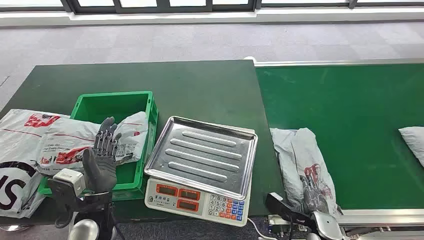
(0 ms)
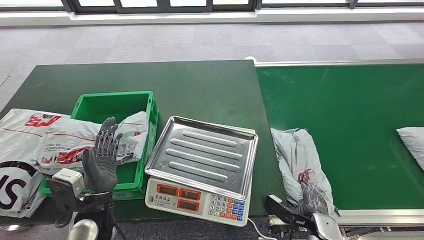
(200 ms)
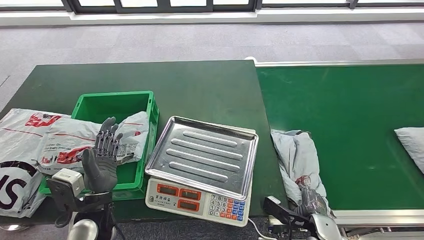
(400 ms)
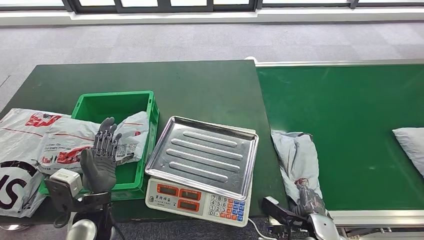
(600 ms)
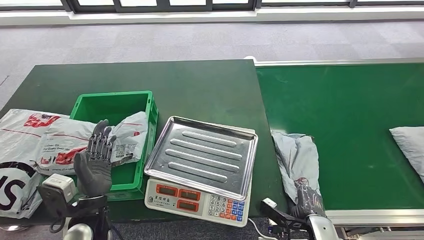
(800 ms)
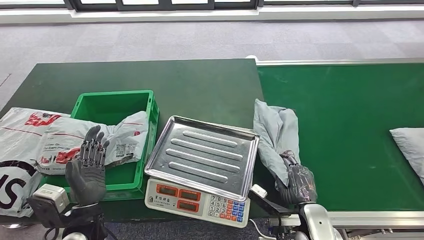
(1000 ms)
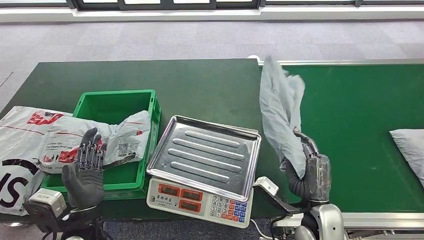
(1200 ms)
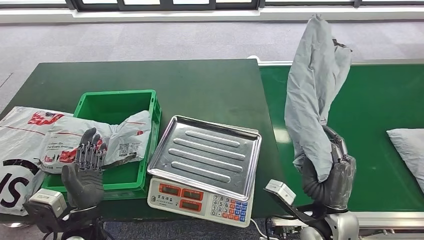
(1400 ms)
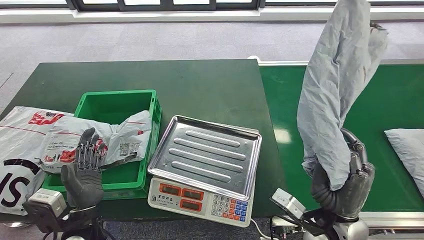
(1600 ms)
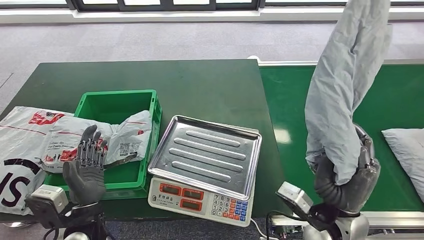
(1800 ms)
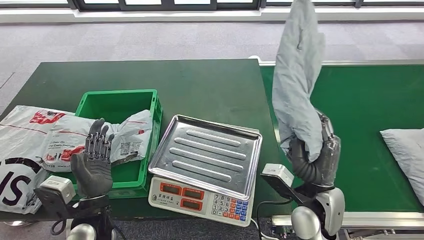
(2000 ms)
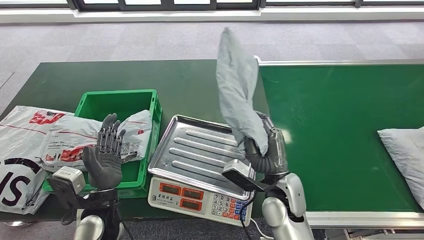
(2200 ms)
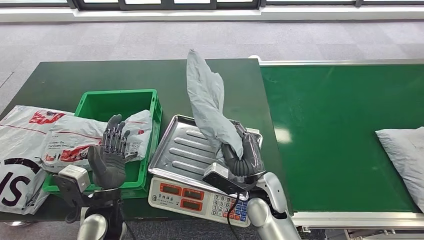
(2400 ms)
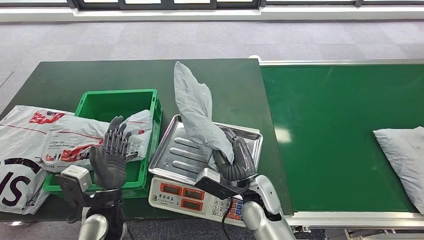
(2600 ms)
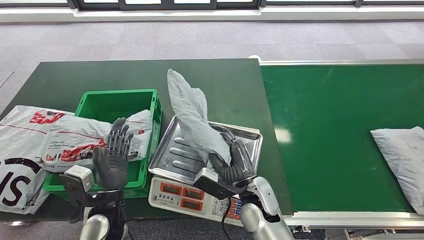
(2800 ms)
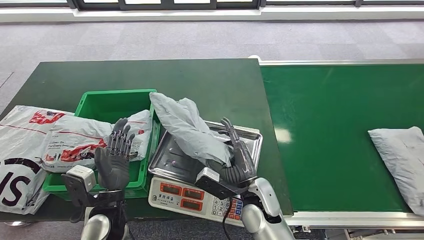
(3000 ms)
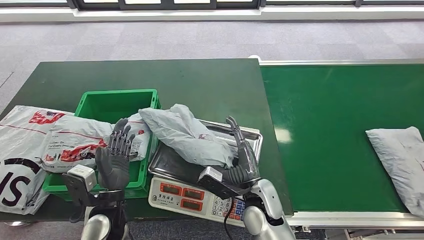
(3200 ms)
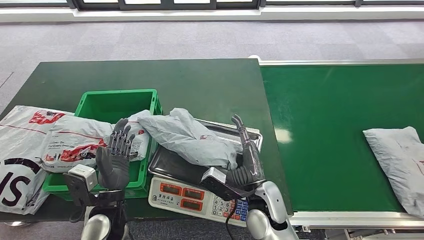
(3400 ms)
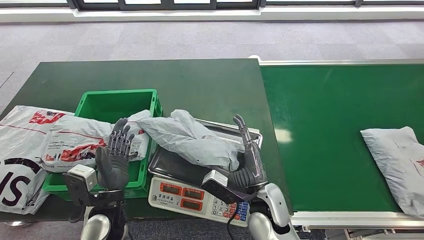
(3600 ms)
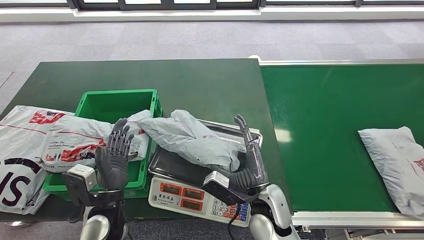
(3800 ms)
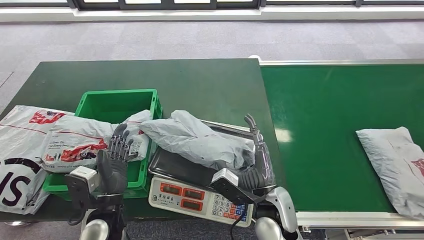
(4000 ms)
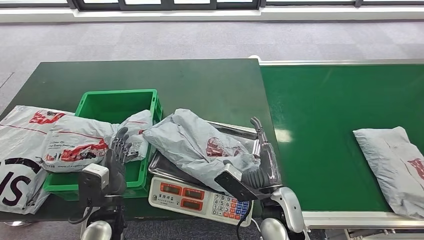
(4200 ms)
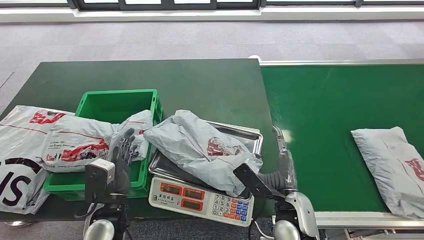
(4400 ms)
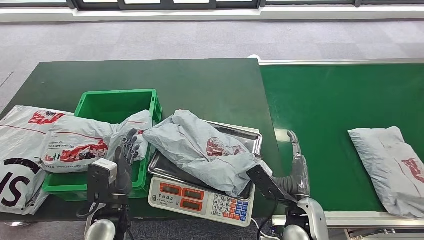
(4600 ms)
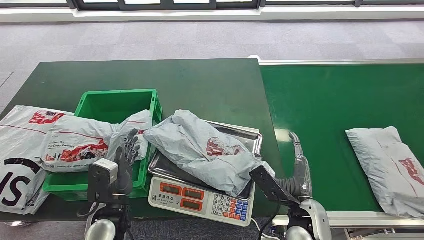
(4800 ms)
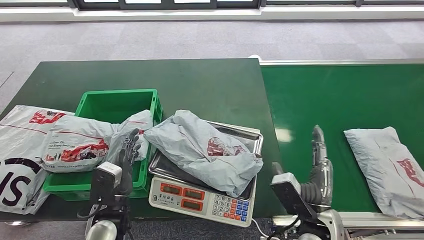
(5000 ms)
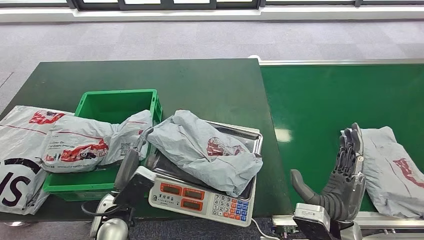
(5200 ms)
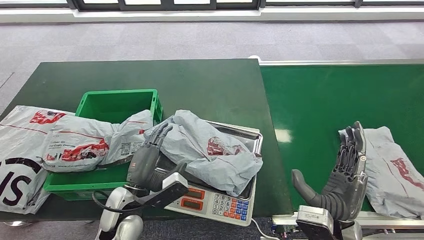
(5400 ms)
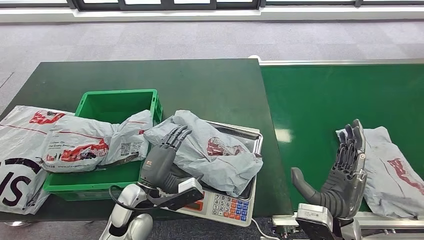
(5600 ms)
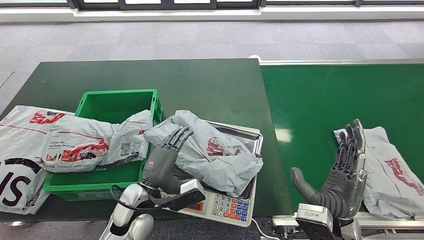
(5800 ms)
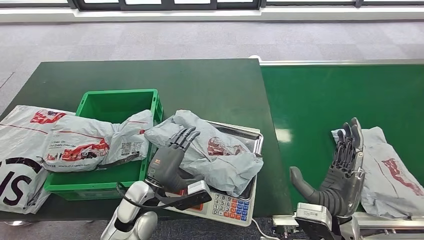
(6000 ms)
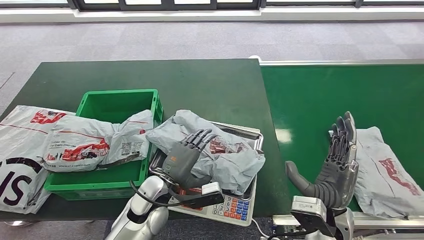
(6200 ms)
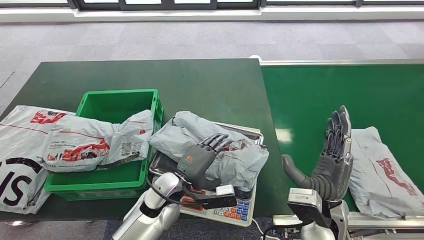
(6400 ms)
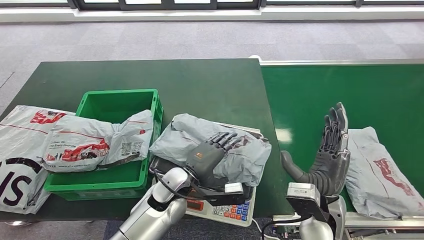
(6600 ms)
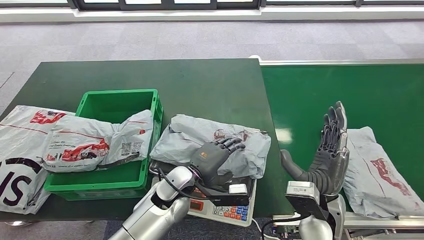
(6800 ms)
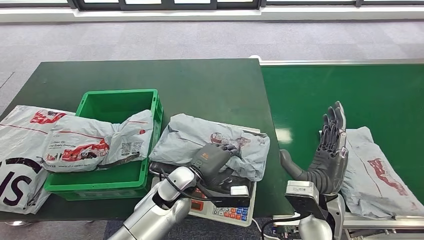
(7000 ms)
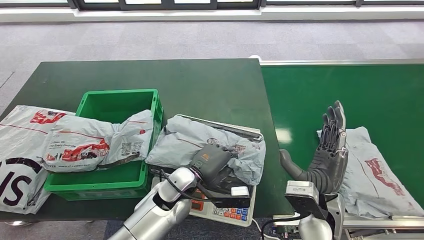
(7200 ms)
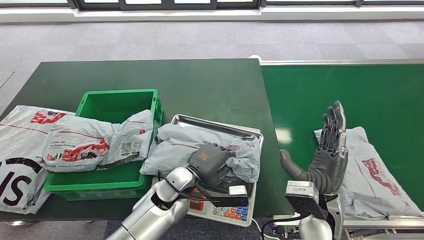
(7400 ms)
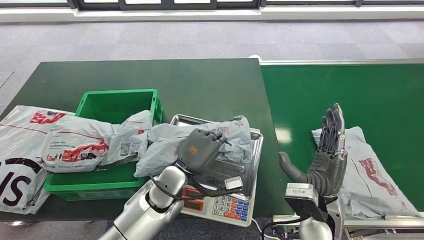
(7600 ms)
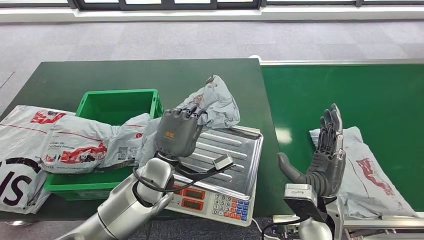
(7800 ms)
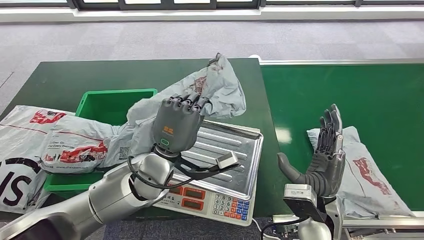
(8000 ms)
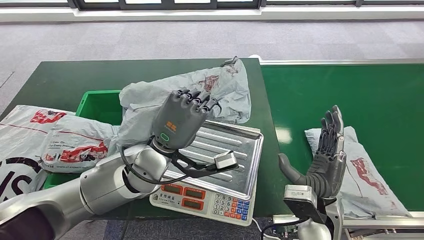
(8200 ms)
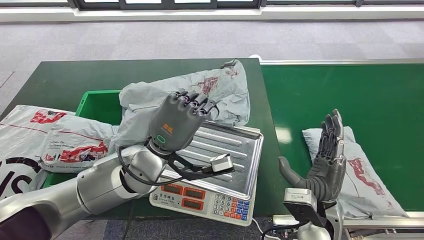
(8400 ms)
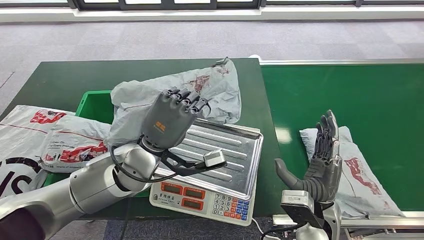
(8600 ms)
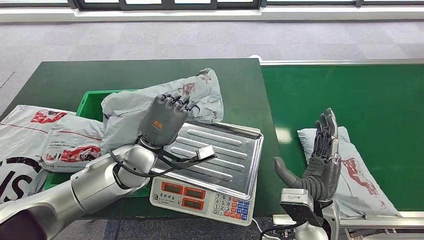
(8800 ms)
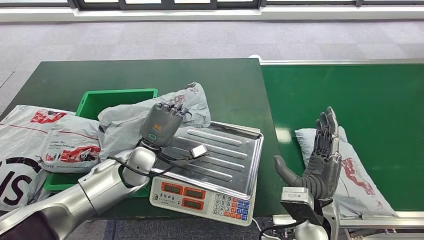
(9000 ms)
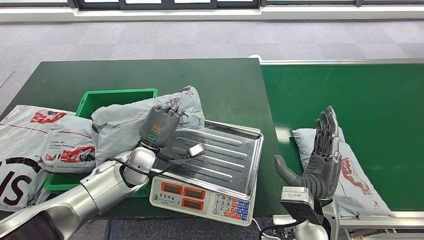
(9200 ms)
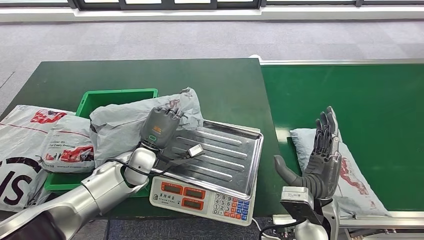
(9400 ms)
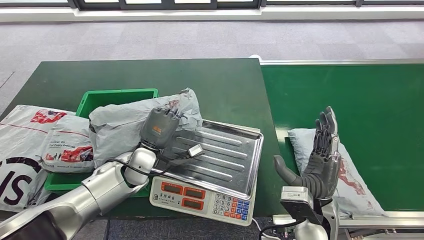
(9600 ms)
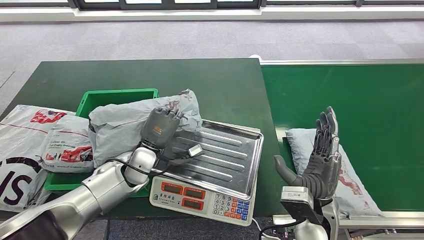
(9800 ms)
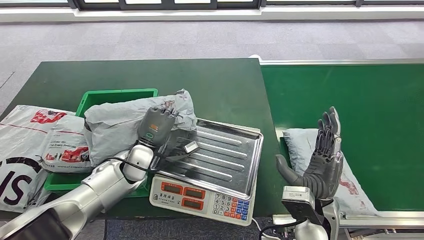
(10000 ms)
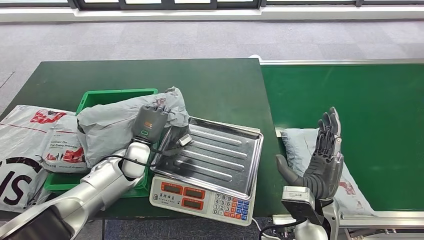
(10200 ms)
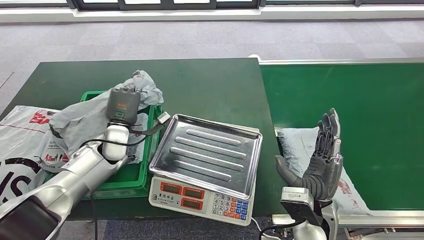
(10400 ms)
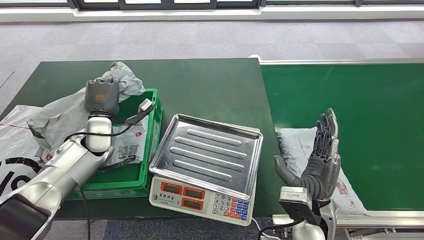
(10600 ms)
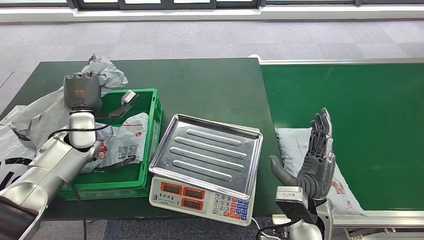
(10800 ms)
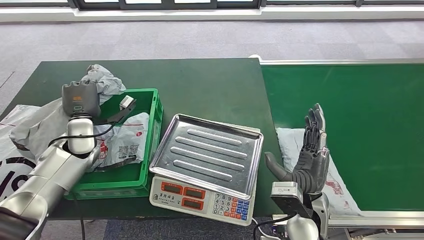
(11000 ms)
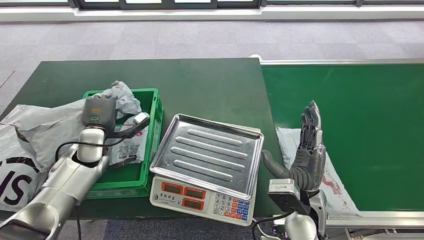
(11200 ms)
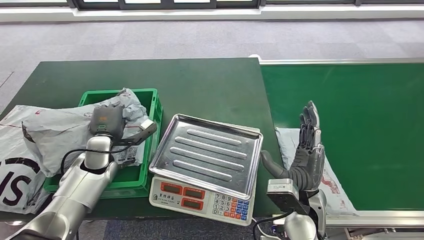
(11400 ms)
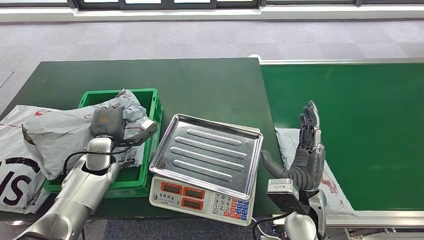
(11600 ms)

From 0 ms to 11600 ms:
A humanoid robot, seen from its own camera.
Step, from 0 ms to 1400 ms: Pick up the package from the conveyor belt.
Step, from 1600 ms to 4200 ms: Place the package onto the inbound machine.
Step, from 4400 ms to 7800 ms: Pick up the package from the inbound machine.
Step, from 8000 ms to 11600 ms: Place the package into the parcel locker.
From 2800 ms to 4400 ms: The right hand heads to the right, covering roughly 5 cm.
From 4400 ms to 5800 ms: The hands both shift to the right by approximately 5 cm.
From 5800 ms to 7200 ms: The left hand shifts some 10 cm to the right.
From 8800 ms to 10200 ms: The left hand shifts about 10 cm downward and to the left.

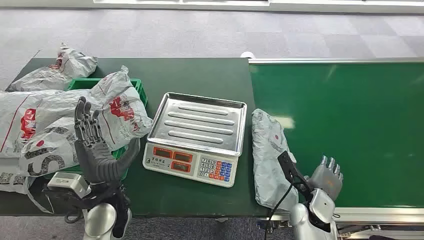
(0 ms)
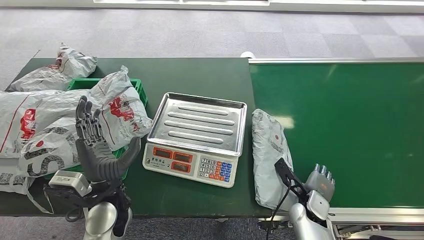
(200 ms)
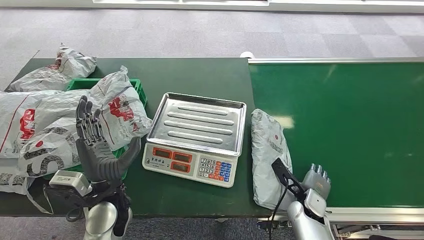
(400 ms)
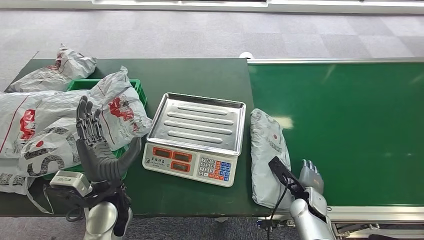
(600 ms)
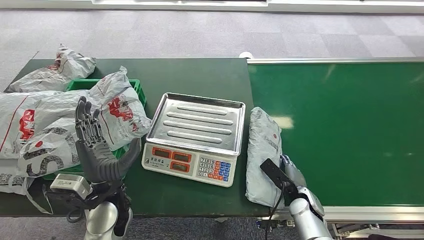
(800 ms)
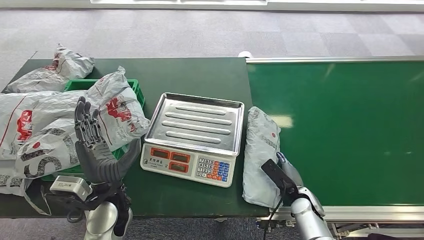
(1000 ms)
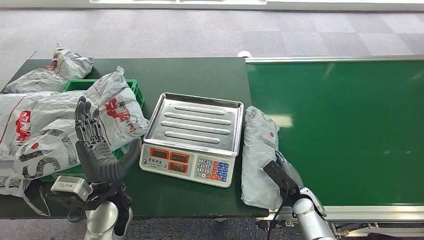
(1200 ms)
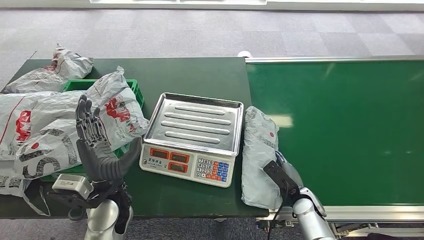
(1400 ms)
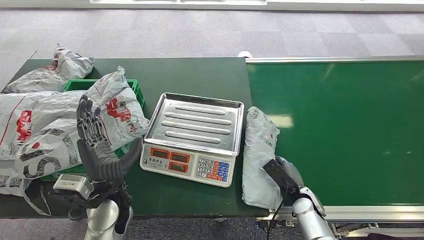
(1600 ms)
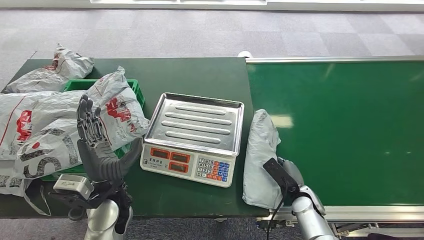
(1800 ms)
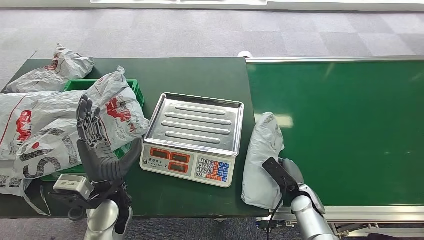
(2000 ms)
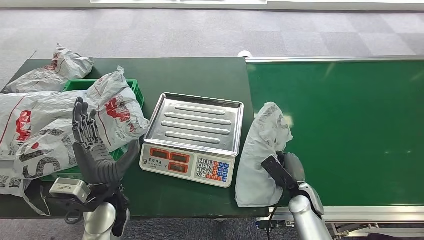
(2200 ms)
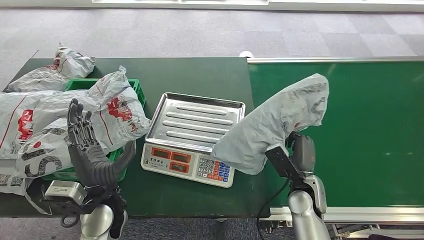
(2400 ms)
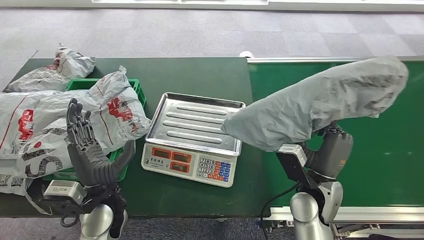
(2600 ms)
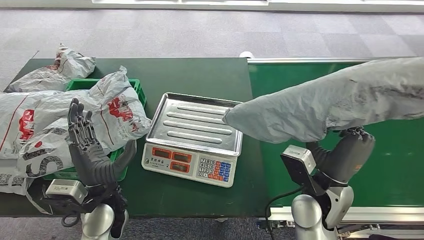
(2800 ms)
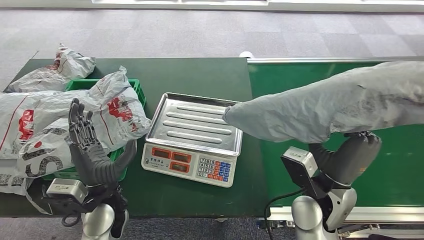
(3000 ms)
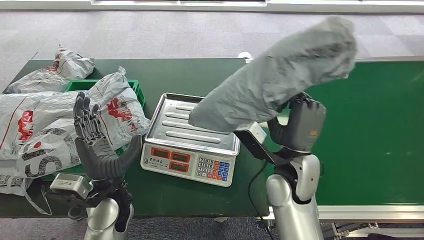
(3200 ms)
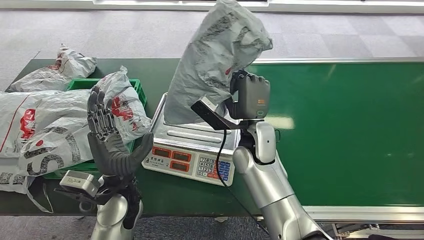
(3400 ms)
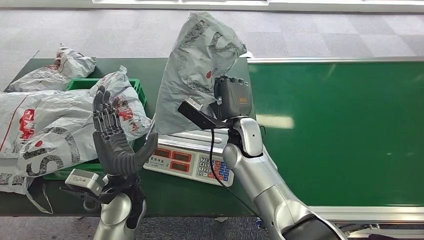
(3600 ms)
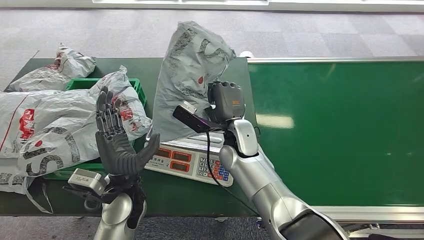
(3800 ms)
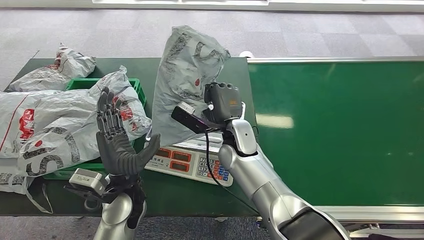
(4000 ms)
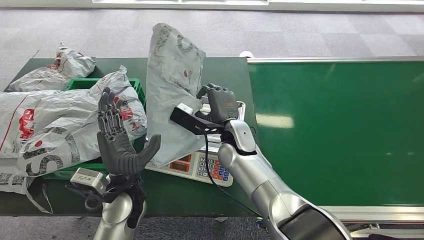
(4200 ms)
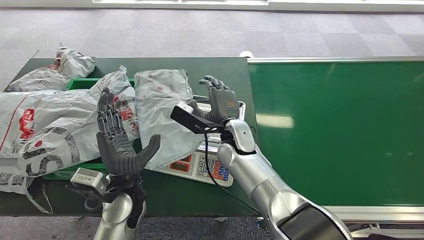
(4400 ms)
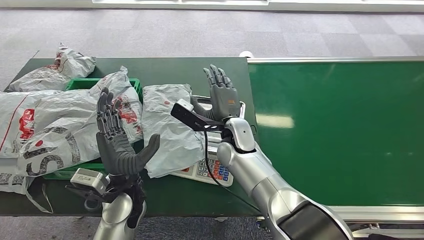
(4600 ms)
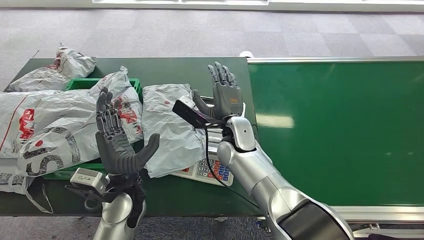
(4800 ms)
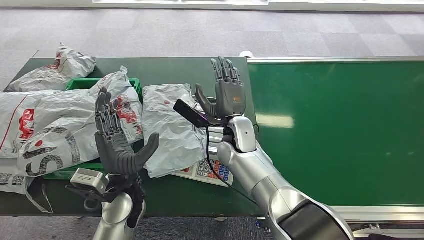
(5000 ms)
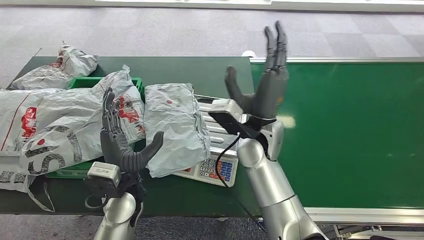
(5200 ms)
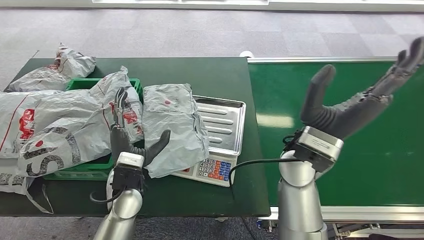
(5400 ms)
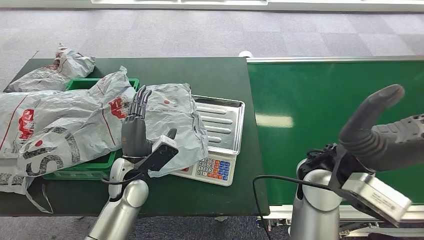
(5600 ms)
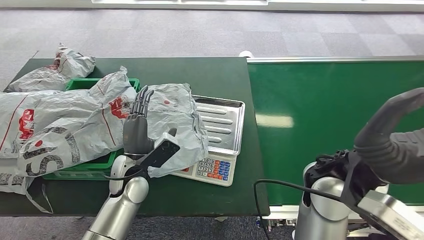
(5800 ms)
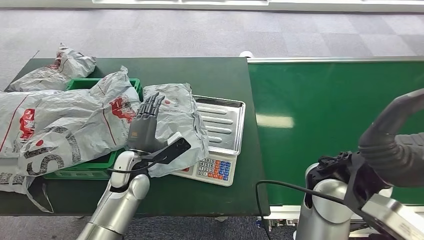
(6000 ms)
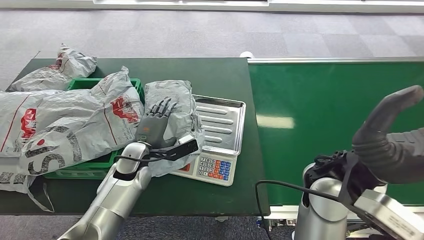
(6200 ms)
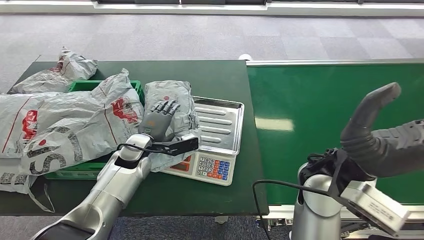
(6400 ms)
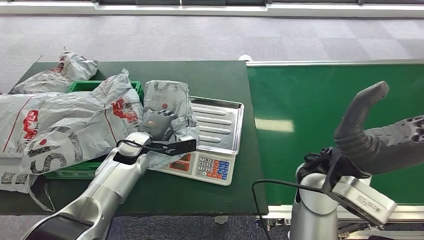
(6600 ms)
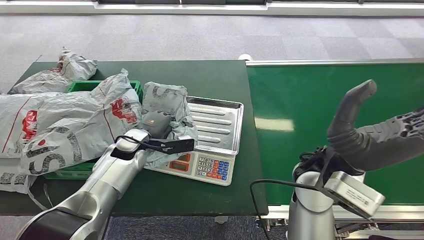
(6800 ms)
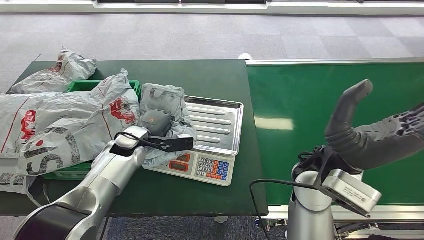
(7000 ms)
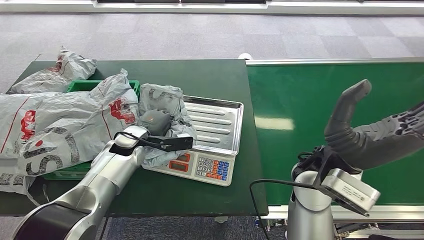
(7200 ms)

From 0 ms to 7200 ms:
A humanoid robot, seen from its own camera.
Step, from 0 ms to 3600 ms: Pick up the package from the conveyor belt.
Step, from 3800 ms to 6000 ms: Place the package onto the inbound machine.
